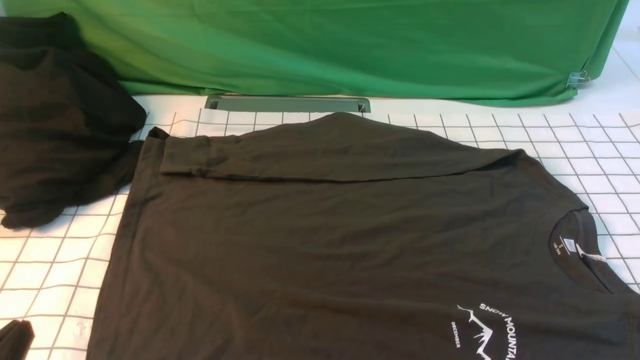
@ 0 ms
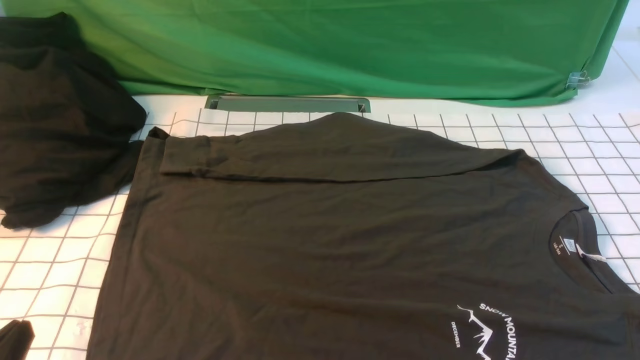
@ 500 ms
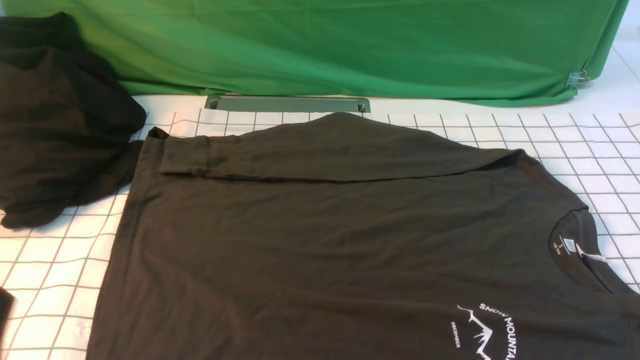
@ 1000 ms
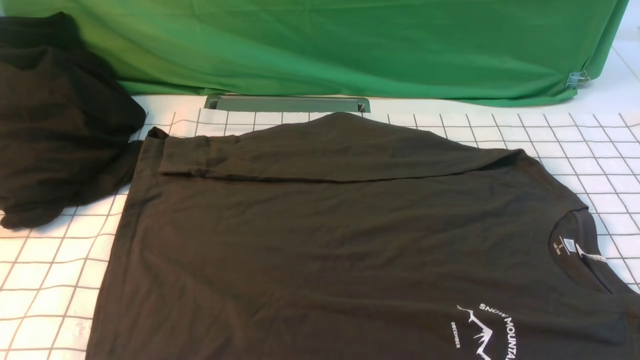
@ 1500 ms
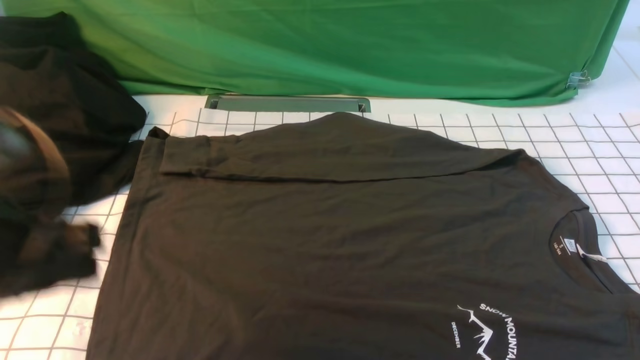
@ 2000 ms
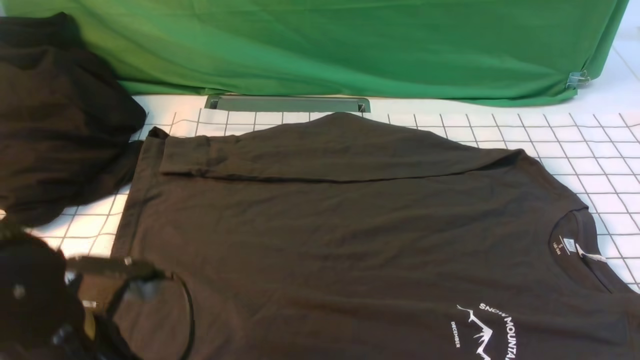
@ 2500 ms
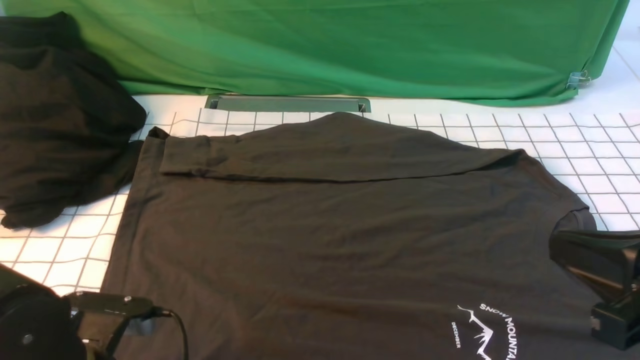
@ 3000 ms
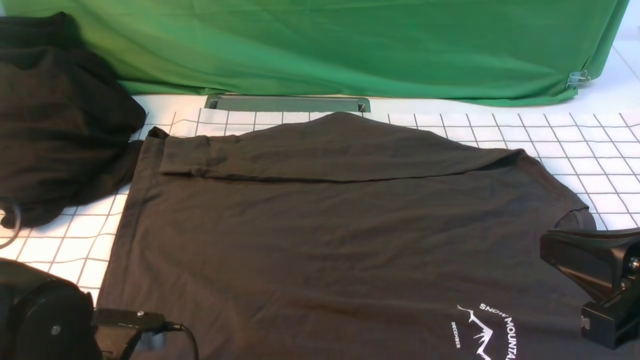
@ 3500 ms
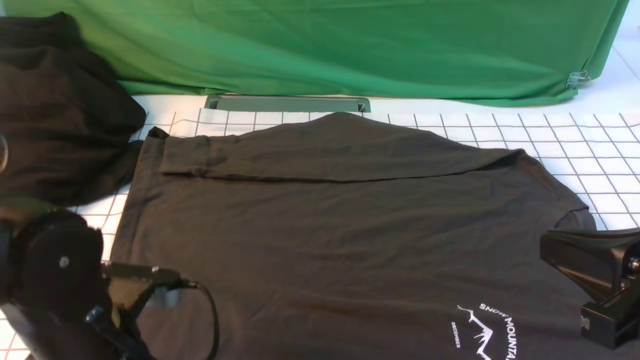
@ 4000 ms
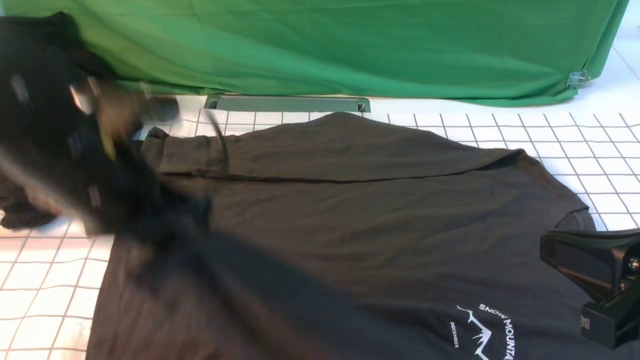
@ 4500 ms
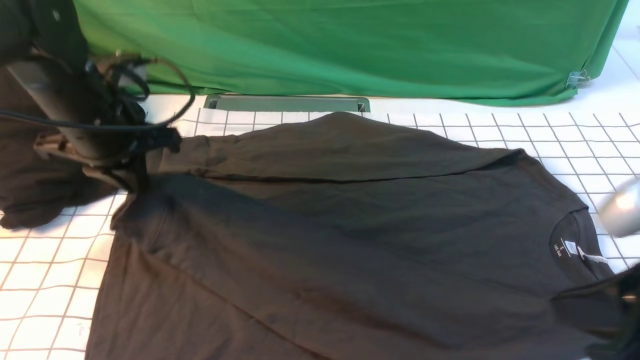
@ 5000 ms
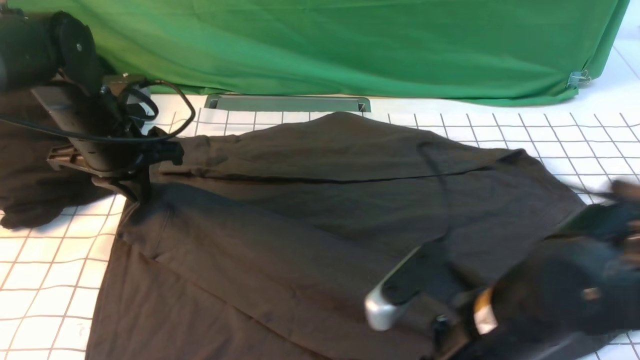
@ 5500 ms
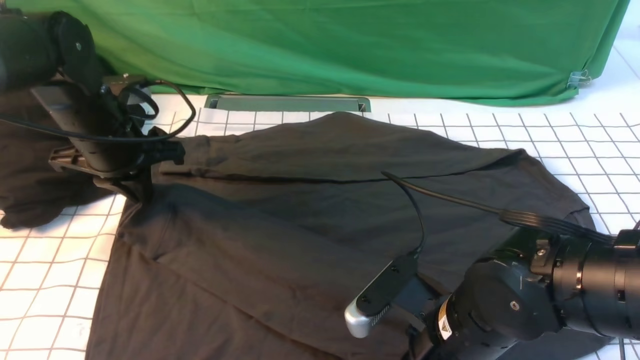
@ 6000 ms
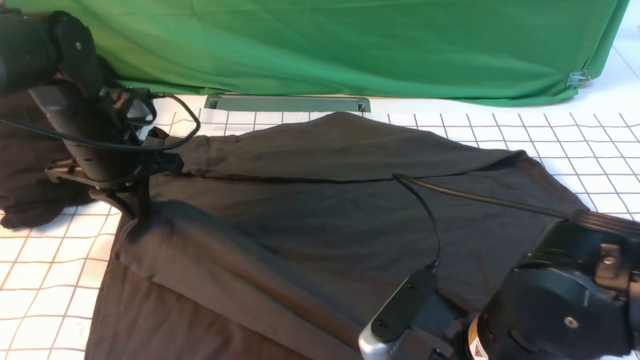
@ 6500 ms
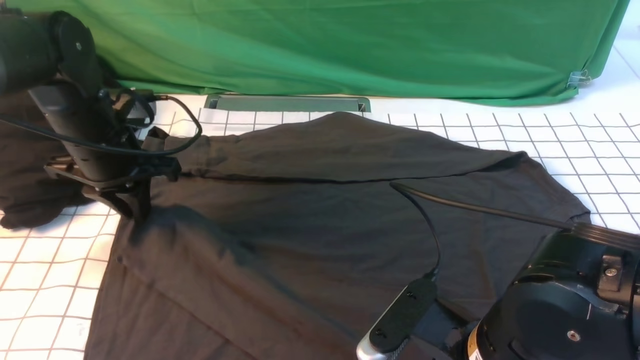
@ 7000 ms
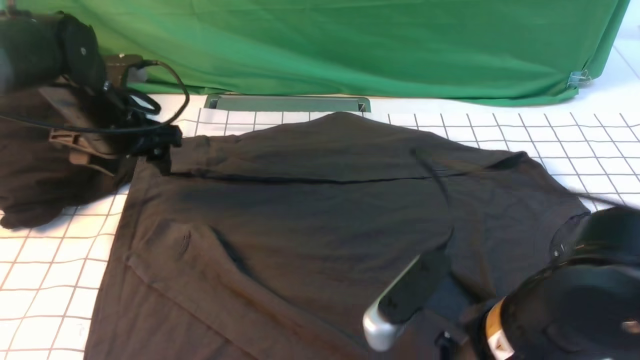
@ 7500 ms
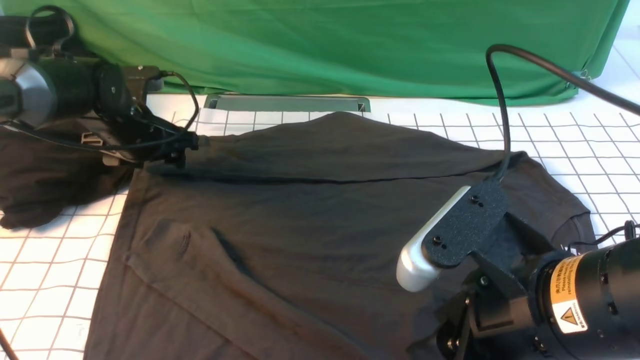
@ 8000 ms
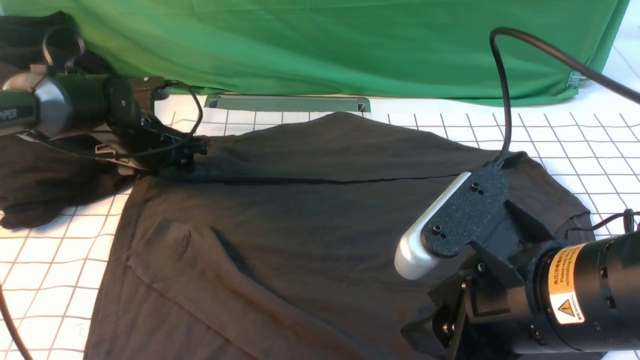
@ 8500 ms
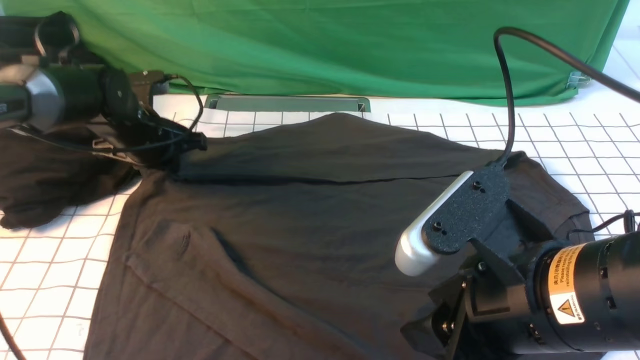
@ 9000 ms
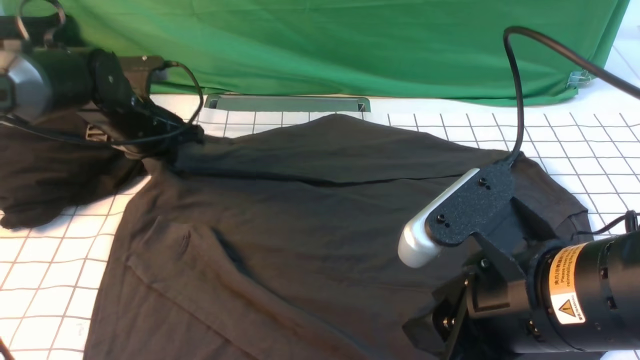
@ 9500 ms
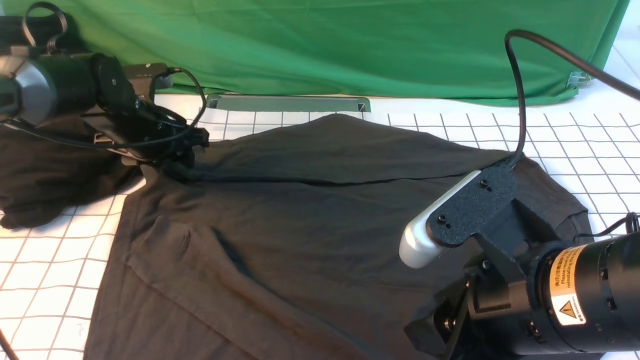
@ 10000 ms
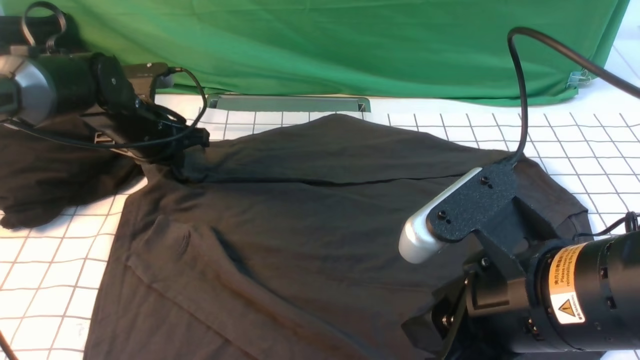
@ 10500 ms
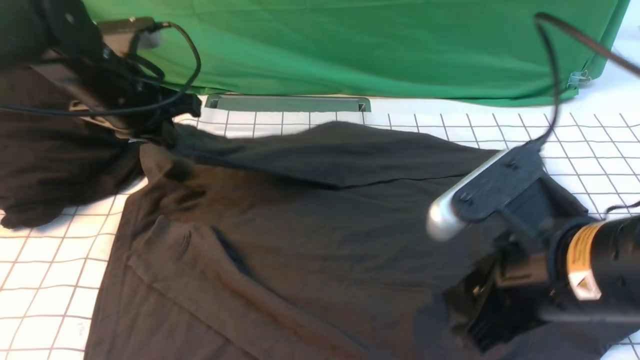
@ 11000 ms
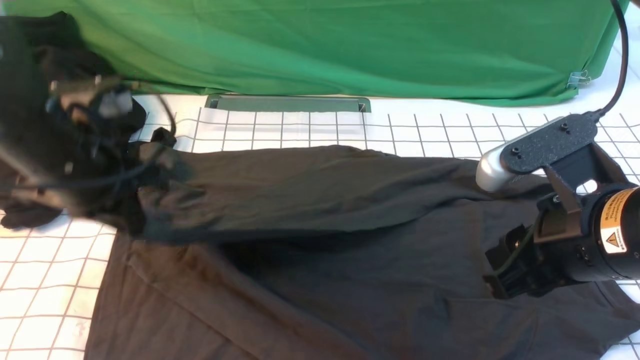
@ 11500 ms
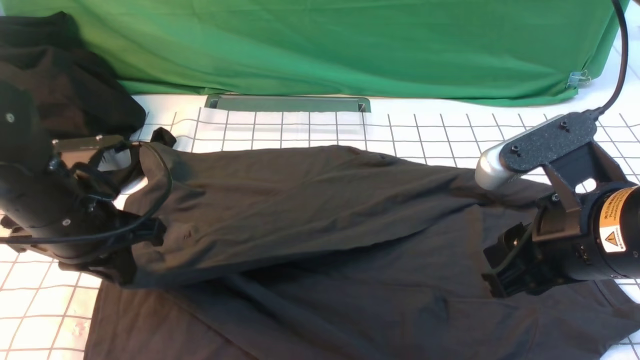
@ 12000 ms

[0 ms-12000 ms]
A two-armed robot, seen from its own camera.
Step, 0 ms to 3500 ms: use the left arm to clamp the cuff closest to it.
Step, 4000 ms to 7000 ms: use the left arm to drag and place the cuff at the centered position on the left edge of the fabric.
Step, 7500 ms to 10000 ms: use the left arm to clamp the cuff farthest from it.
0 ms to 2000 ms: The left gripper moves forward and upward, roughly 15 cm.
2000 ms to 4000 ms: The left gripper shifts roughly 10 cm downward and to the right, and opens and closes again; the right gripper moves to the left, upward and forward, some 15 cm, and closes its fingers.
4000 ms to 6000 ms: The right gripper moves downward, to the left and forward, roughly 20 cm; the left gripper goes some 20 cm forward.
6000 ms to 8000 ms: The left gripper moves forward, about 5 cm, and opens up; the right gripper is displaced upward by approximately 10 cm, and opens.
8000 ms to 10000 ms: The left gripper closes, then opens again.
10000 ms to 12000 ms: The left gripper goes about 15 cm backward, and closes, while the right gripper travels to the right by approximately 5 cm.

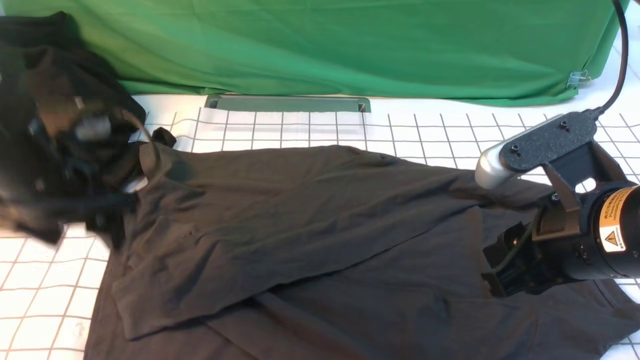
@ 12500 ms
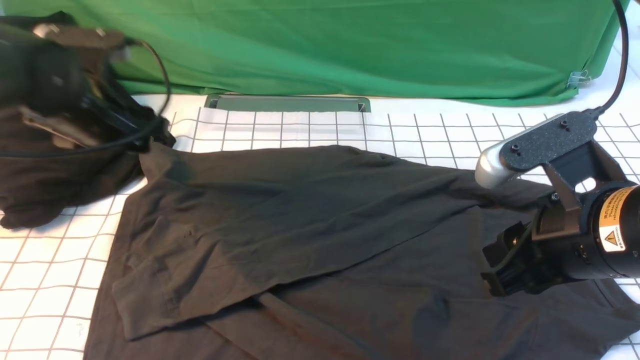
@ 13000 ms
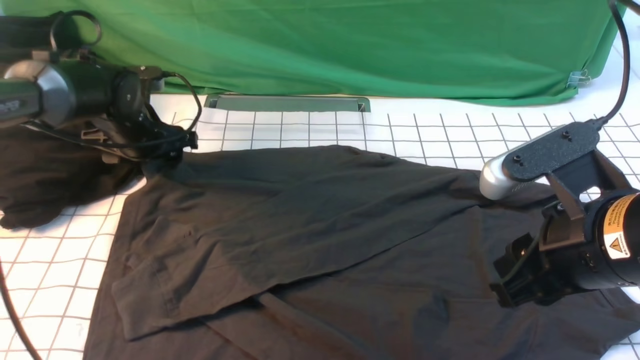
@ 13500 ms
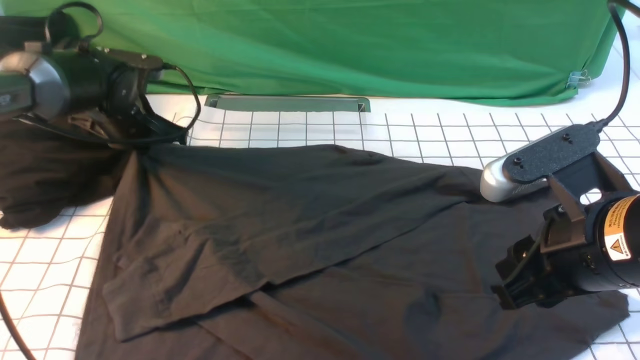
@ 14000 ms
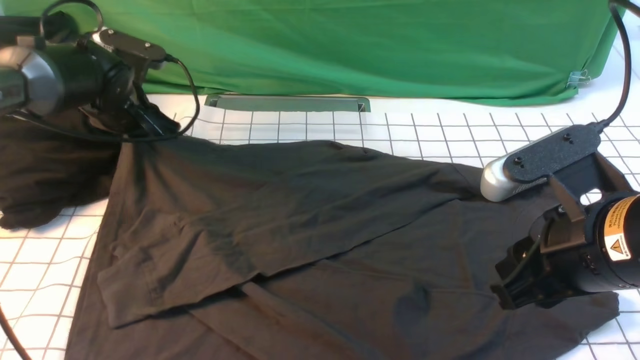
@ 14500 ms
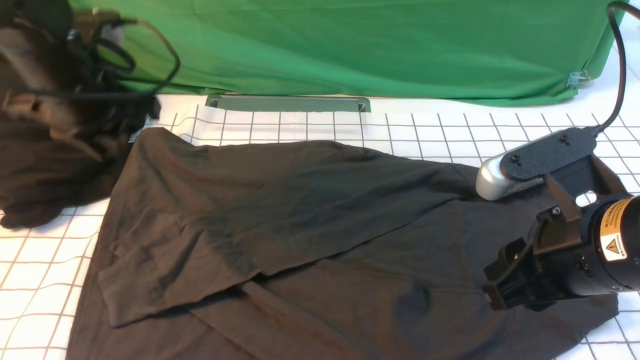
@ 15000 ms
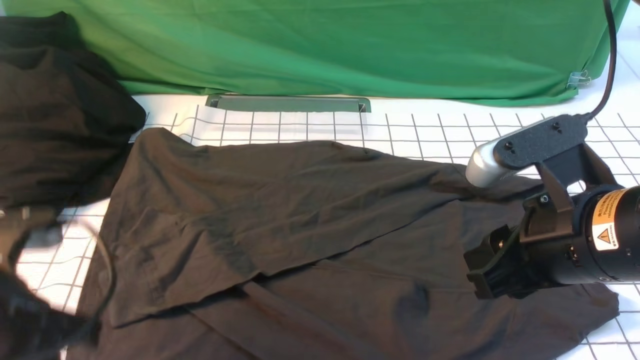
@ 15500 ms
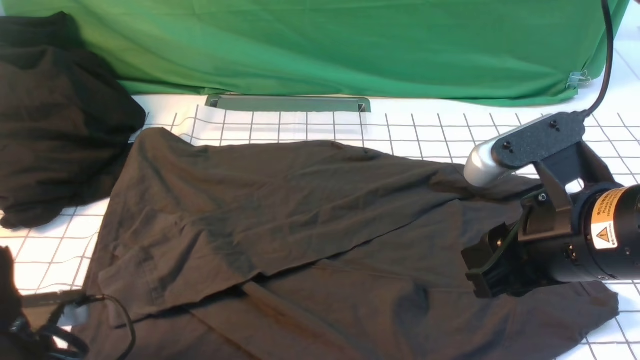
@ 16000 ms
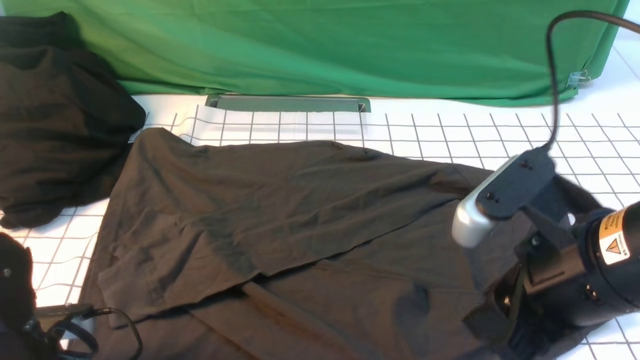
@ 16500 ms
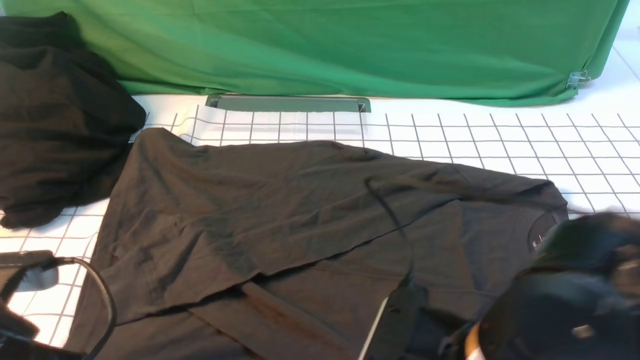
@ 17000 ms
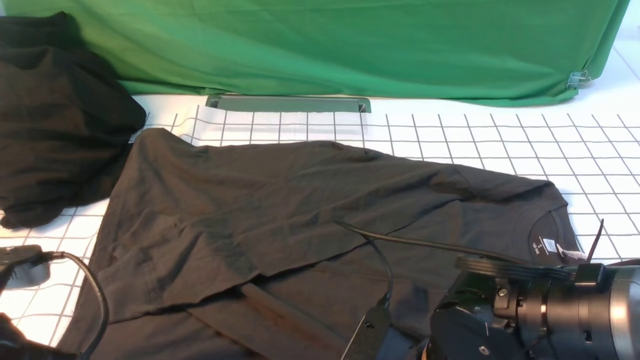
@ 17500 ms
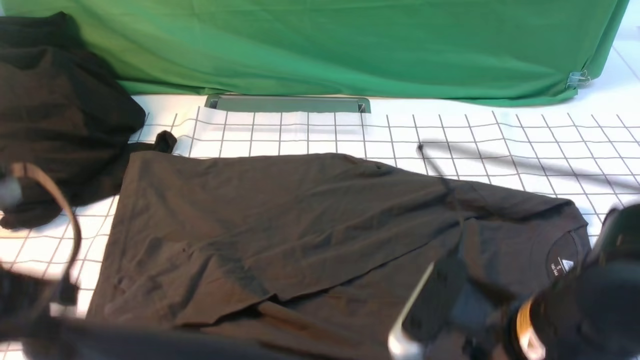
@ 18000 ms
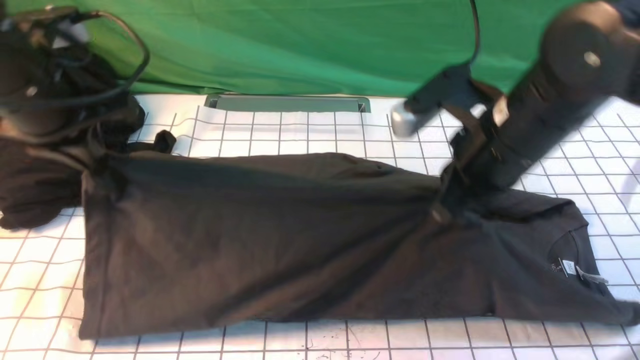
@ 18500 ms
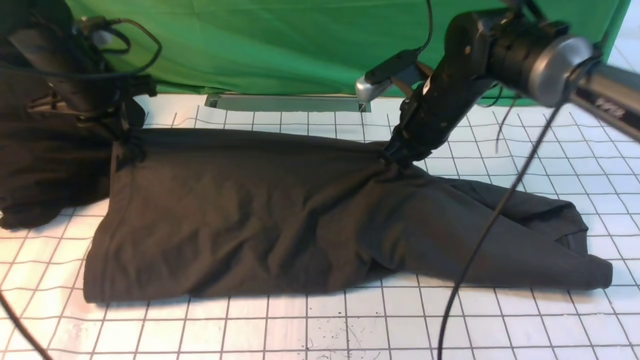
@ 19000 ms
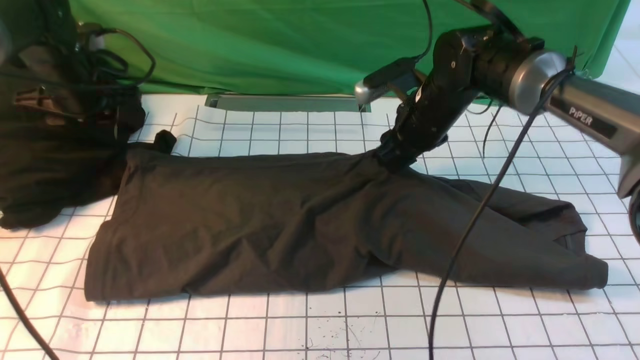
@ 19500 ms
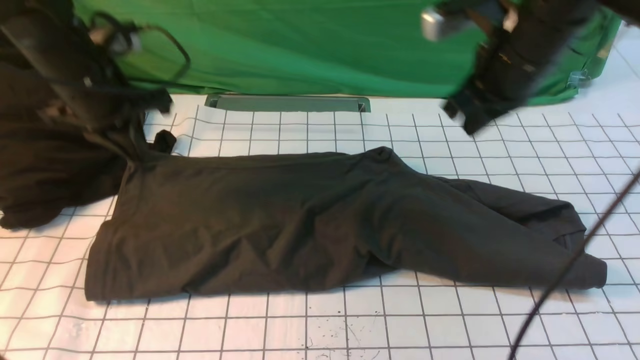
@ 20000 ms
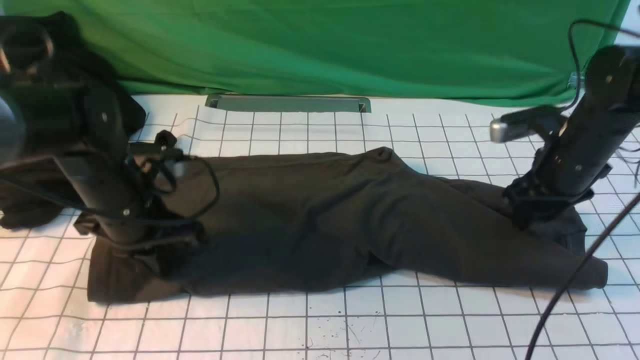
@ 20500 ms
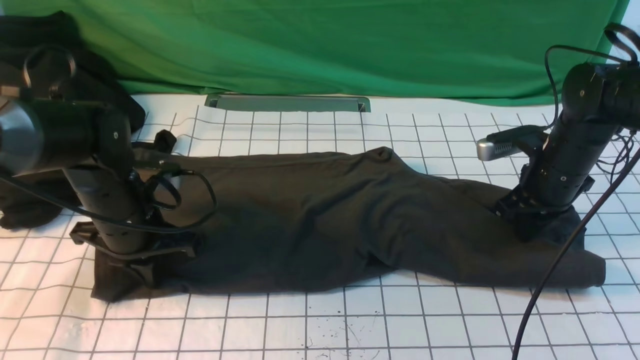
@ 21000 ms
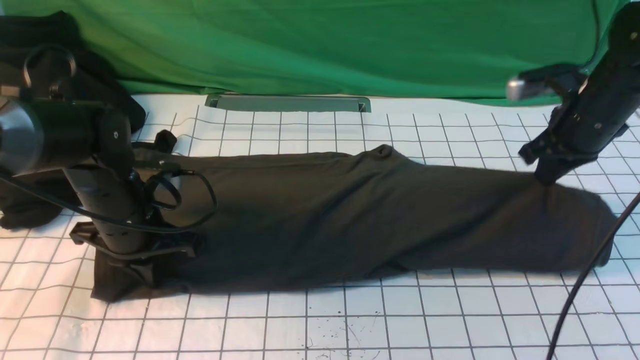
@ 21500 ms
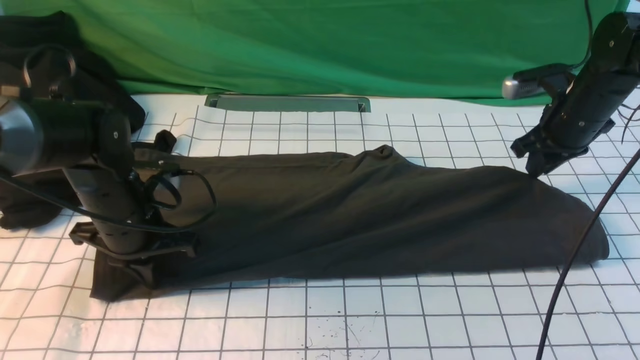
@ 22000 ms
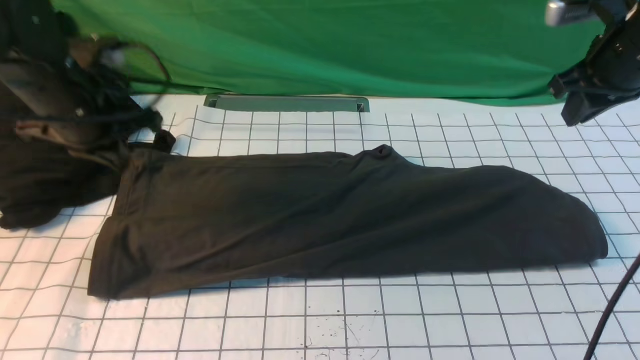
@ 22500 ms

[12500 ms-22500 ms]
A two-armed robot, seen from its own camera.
Step, 12500 ms to 17000 ms: use both arms simultaneously to clamp the lower edge of the clothing fabric.
Step, 18000 ms to 19000 ms: use both arms to drag the lower edge of the fabric forward and fold it over the upper edge.
12500 ms to 14500 ms: The left gripper heads forward, covering approximately 15 cm, and closes.
14500 ms to 16500 ms: The left gripper moves backward, approximately 30 cm, and closes.
16500 ms to 18500 ms: The left gripper heads upward and forward, covering about 25 cm. Meanwhile the right gripper goes approximately 15 cm forward, and closes up.
18500 ms to 20500 ms: The right gripper travels to the right, downward and forward by approximately 20 cm, and opens up. Meanwhile the left gripper heads downward, covering some 15 cm, and opens, then closes once more.
20500 ms to 22500 ms: The grippers both shift upward by roughly 10 cm.
